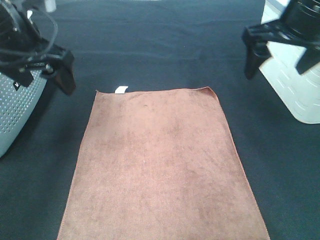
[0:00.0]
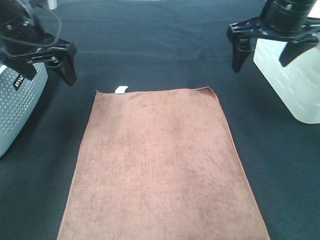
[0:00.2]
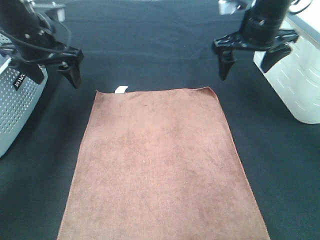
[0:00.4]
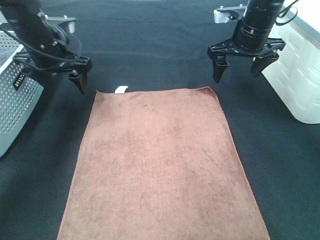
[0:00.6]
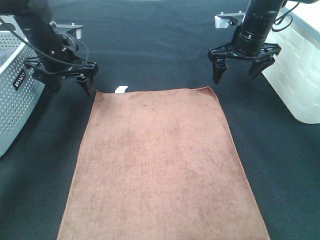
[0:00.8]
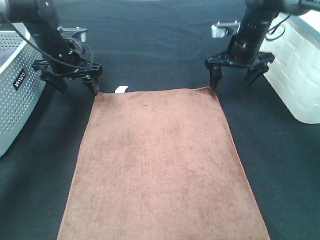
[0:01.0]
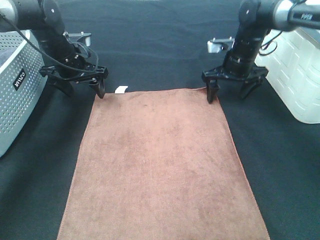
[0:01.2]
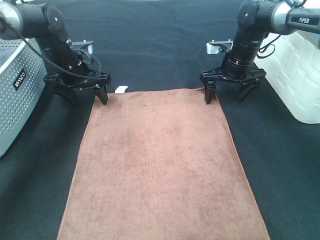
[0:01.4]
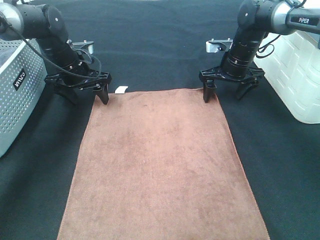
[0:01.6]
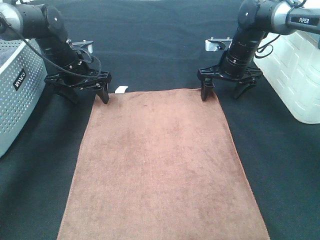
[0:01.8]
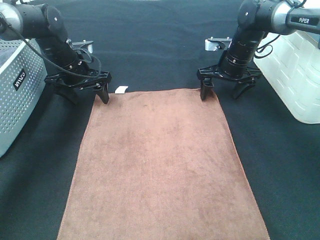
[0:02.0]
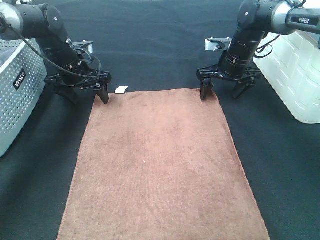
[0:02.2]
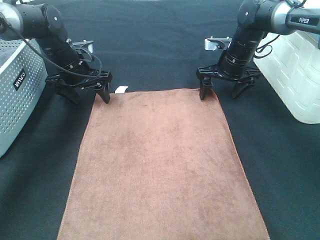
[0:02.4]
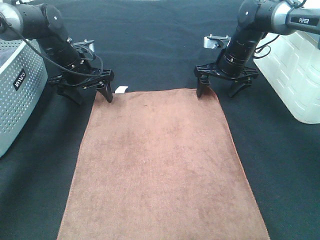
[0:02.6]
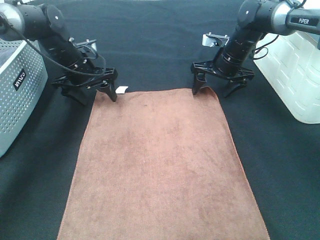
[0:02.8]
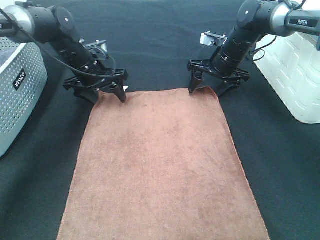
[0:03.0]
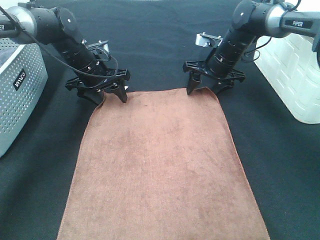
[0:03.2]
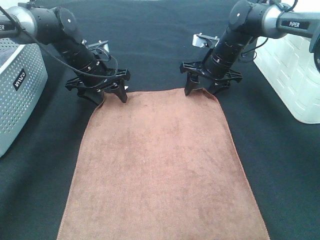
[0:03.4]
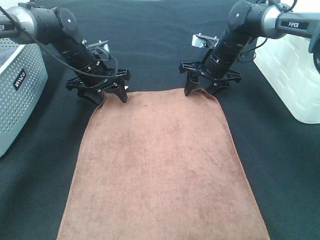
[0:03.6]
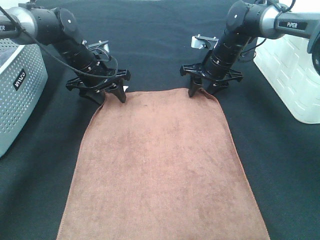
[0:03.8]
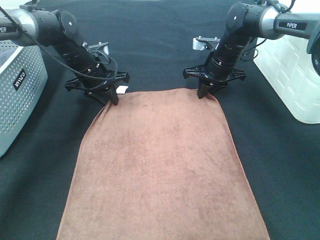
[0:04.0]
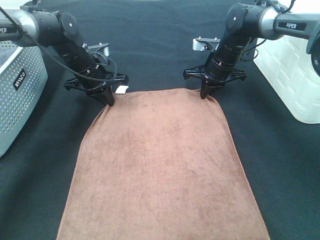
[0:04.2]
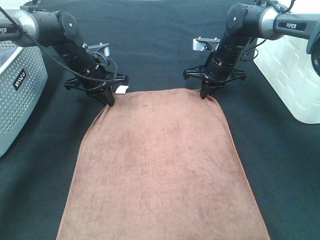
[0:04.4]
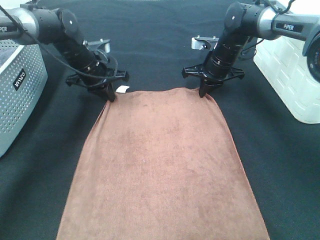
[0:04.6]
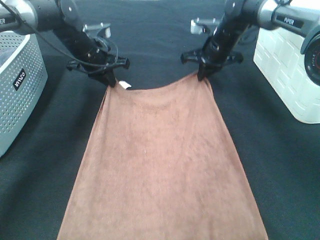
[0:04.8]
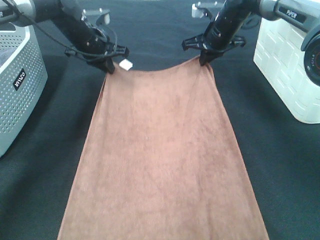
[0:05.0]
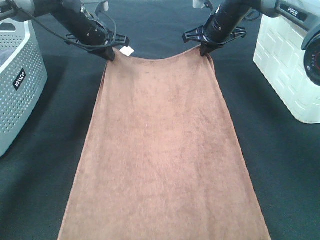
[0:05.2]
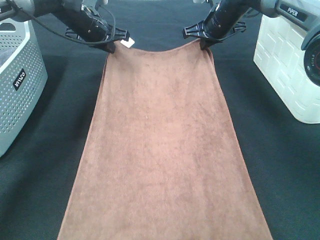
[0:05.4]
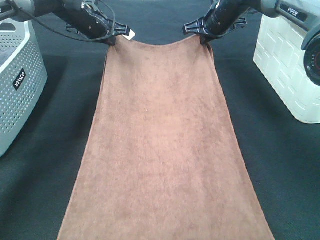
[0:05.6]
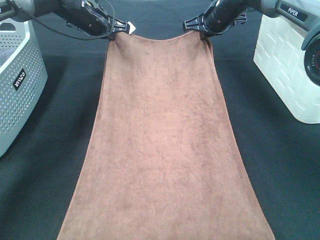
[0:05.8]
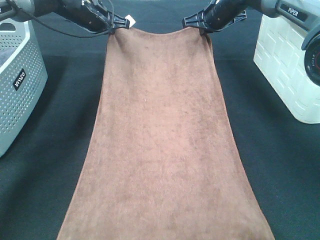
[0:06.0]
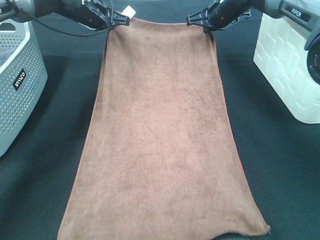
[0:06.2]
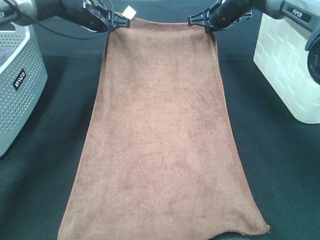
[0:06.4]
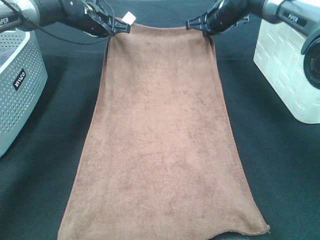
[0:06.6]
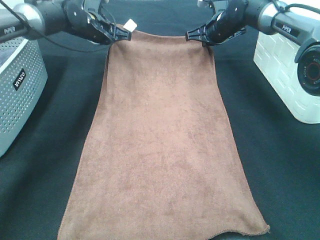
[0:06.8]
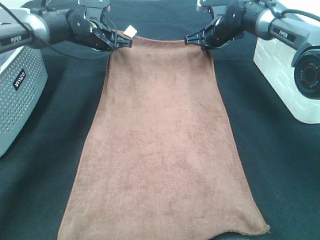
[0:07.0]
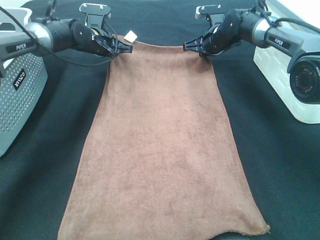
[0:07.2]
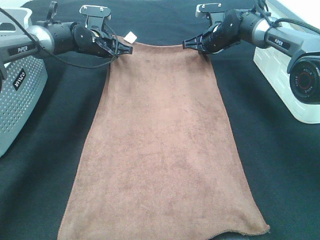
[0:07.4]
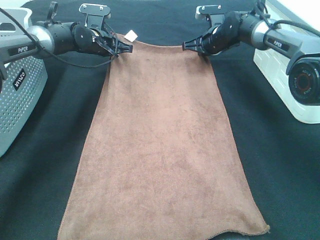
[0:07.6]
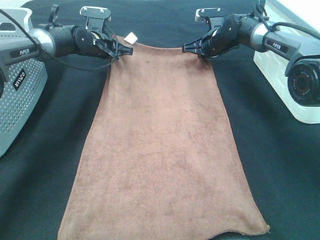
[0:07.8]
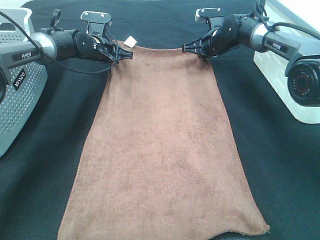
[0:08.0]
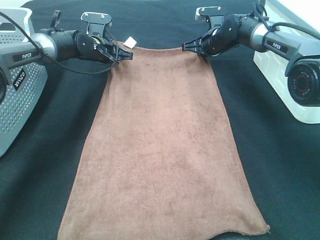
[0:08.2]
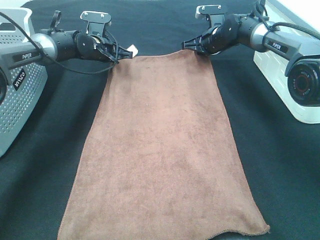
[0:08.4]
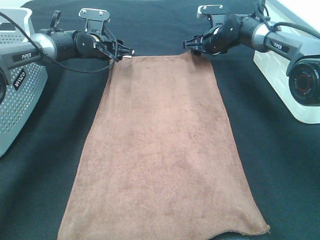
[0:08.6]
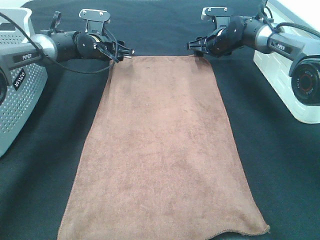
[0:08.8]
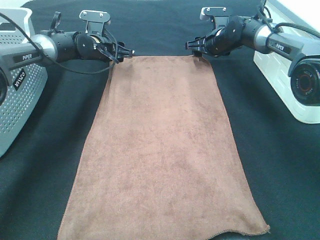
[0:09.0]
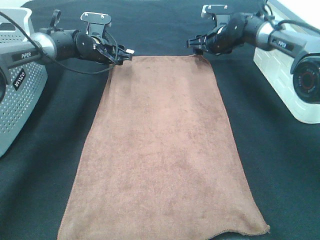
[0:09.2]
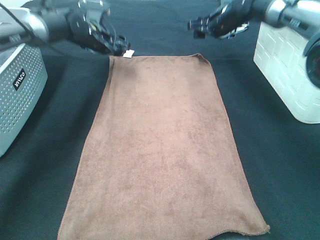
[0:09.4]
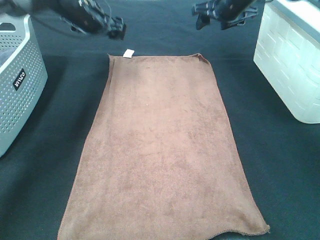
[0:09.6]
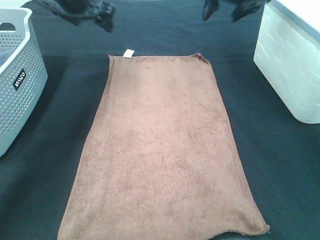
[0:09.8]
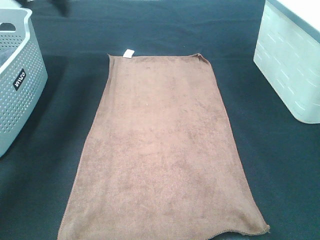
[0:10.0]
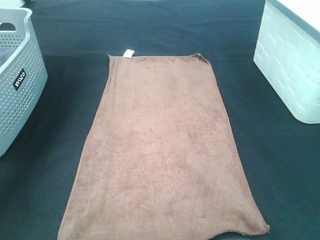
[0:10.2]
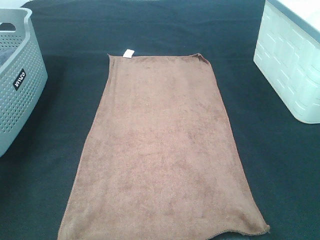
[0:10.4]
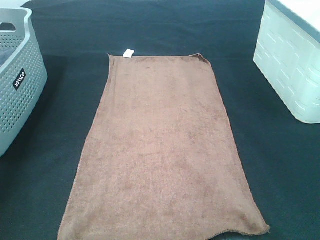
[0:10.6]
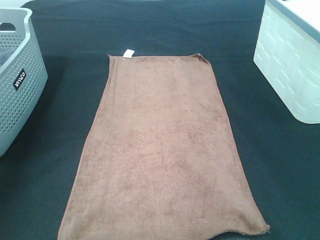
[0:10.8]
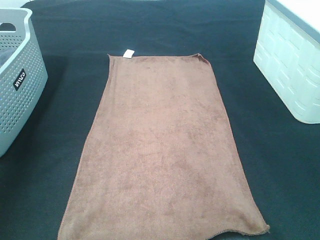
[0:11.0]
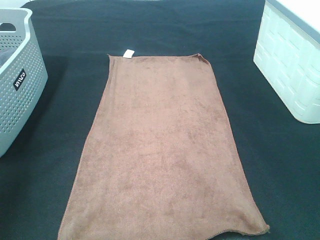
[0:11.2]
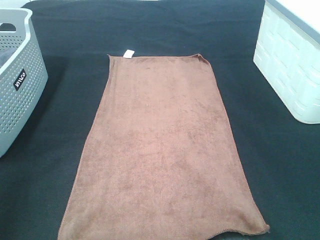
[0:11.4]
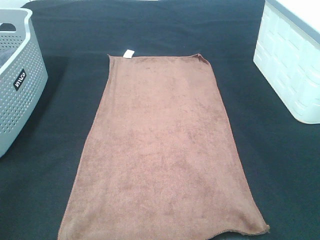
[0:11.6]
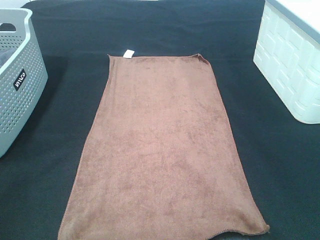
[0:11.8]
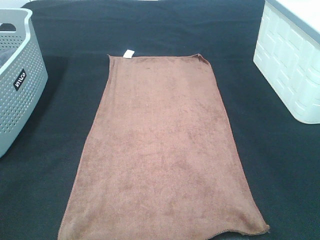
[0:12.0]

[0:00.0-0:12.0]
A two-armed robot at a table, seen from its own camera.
Task of the whole recording: Remove the towel and place it.
Step, 0:00.0 to 0:02.2: Left hand:adjust the brown towel.
Step, 0:00.0 to 0:02.2: Right hand:adjust the brown towel.
0:00.0 to 0:01.6: The two grippers go about 25 cm downward and forward.
0:01.6 to 0:03.0: The grippers make only small movements.
0:03.0 to 0:04.4: The right gripper closes its fingers; the left gripper closes up.
0:04.4 to 0:06.0: The two grippers go roughly 10 cm upward and forward.
0:06.0 to 0:07.6: Both grippers travel together downward, approximately 10 cm.
0:07.6 to 0:09.0: The right gripper opens up. Meanwhile the left gripper opens its fingers.
0:09.0 to 0:10.4: The left gripper goes some 35 cm upward, to the left and backward, while the right gripper shifts some 30 cm upward and backward.
0:10.4 to 0:12.0: Both grippers move backward, roughly 40 cm.

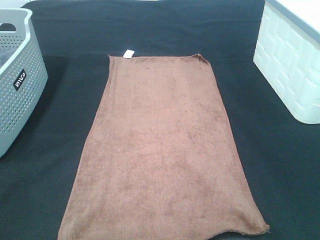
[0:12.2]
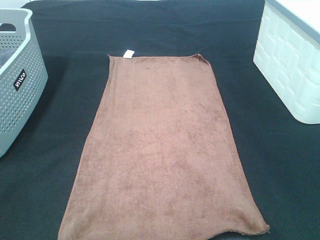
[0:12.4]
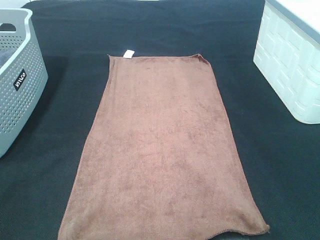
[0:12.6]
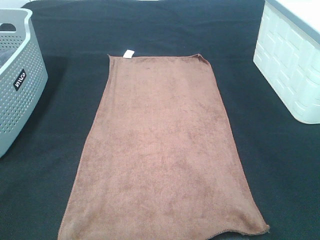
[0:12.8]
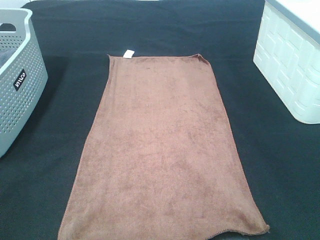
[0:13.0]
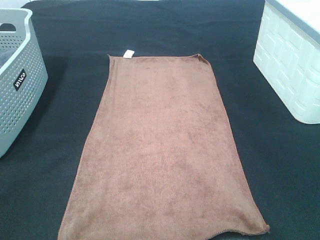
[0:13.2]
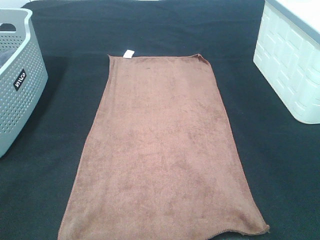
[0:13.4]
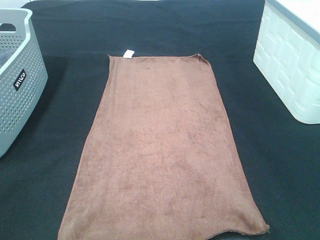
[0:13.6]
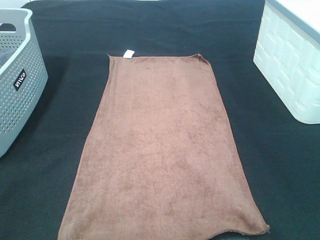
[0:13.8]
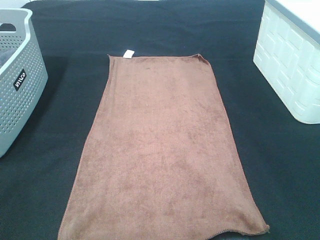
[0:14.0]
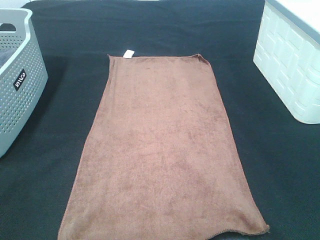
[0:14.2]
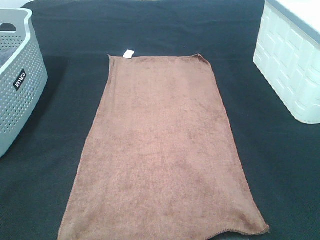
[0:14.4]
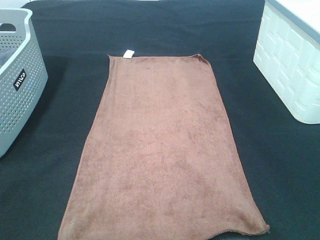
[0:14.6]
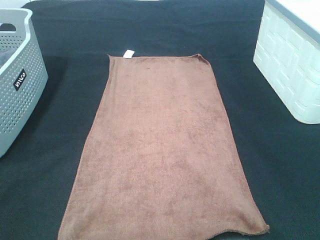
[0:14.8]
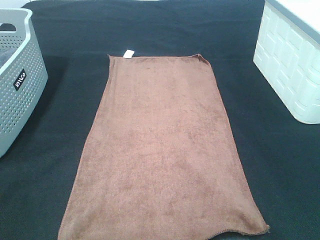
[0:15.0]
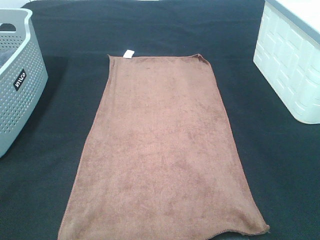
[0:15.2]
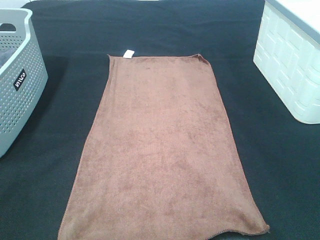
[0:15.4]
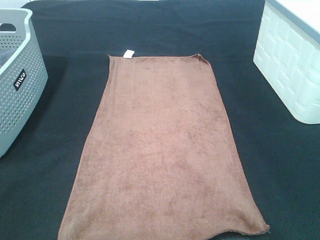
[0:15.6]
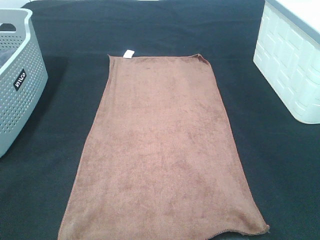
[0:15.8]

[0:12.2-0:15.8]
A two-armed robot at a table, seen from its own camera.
Task of the whole recording: Remove the towel and place it.
0:14.0 to 0:15.8: Both grippers stay about where they are.

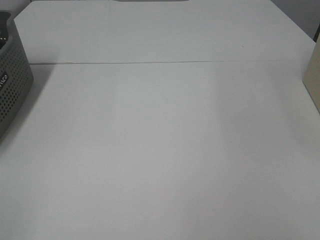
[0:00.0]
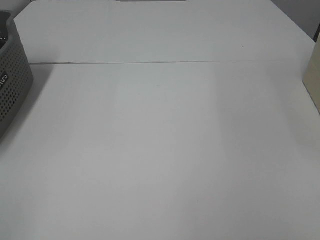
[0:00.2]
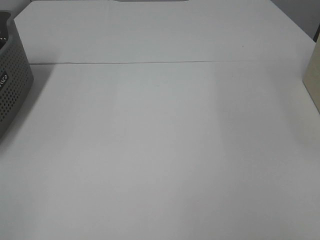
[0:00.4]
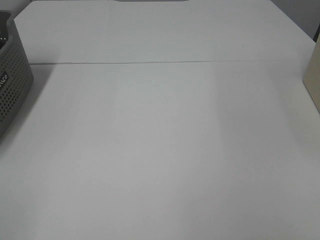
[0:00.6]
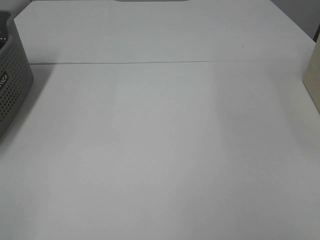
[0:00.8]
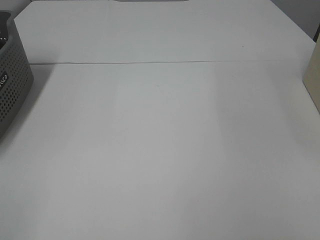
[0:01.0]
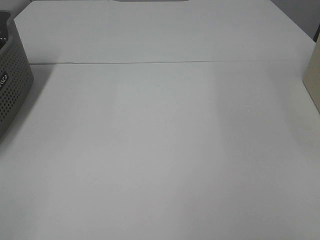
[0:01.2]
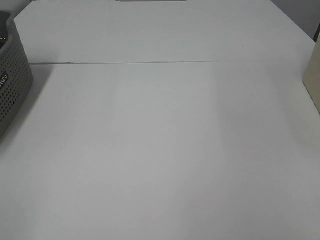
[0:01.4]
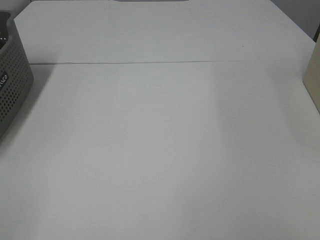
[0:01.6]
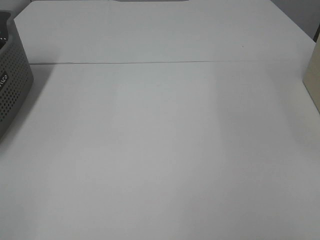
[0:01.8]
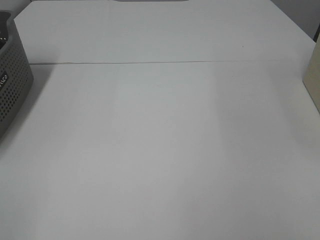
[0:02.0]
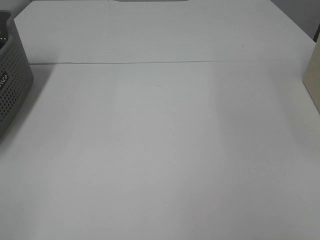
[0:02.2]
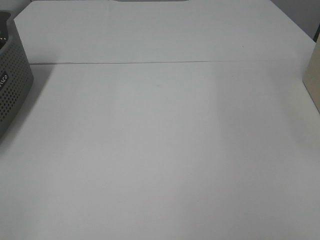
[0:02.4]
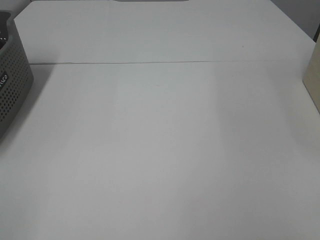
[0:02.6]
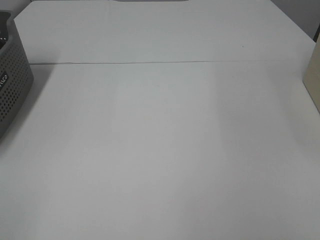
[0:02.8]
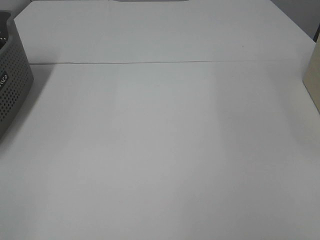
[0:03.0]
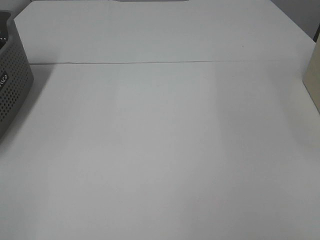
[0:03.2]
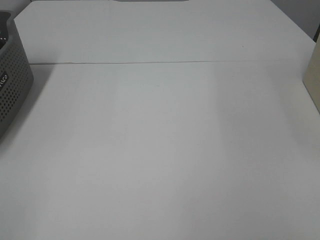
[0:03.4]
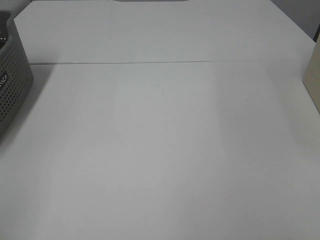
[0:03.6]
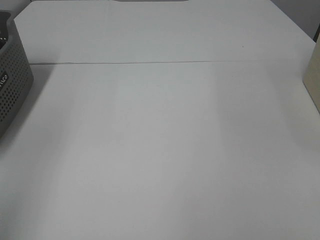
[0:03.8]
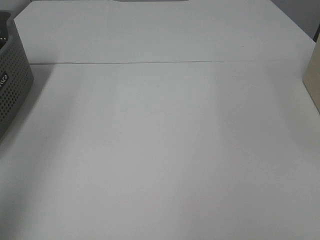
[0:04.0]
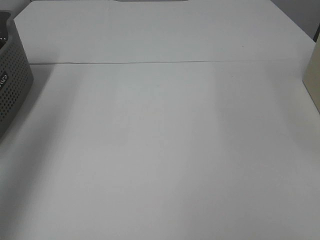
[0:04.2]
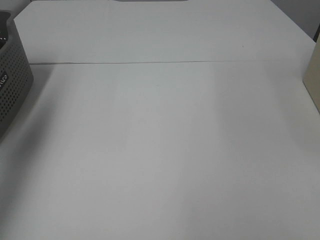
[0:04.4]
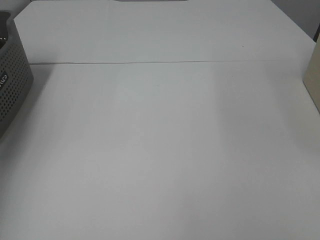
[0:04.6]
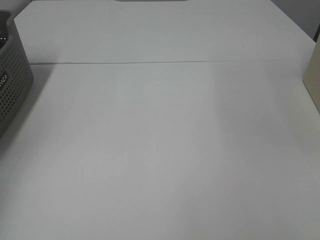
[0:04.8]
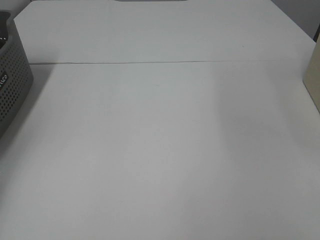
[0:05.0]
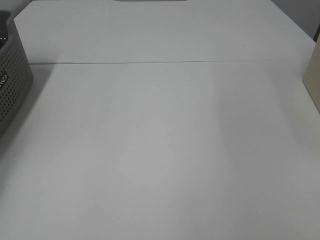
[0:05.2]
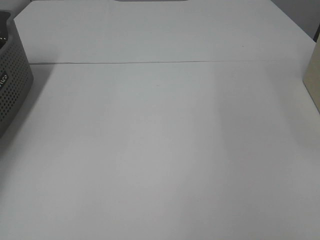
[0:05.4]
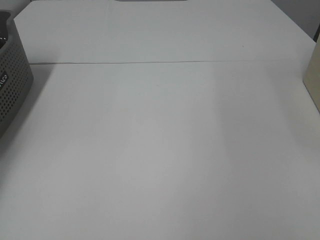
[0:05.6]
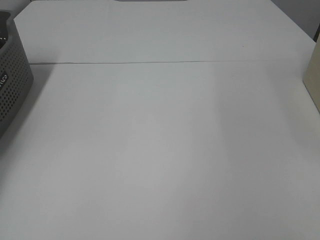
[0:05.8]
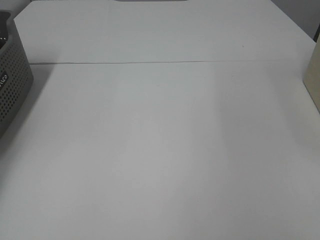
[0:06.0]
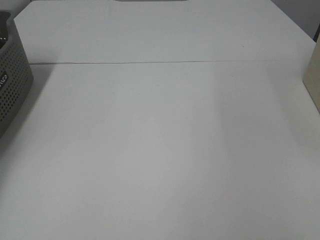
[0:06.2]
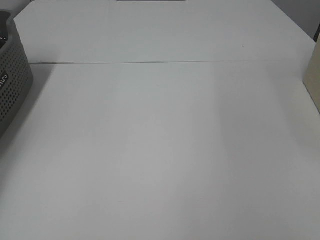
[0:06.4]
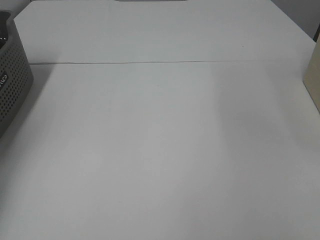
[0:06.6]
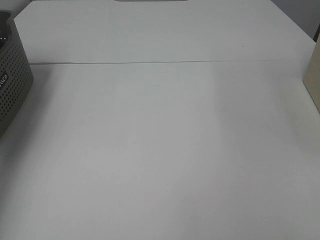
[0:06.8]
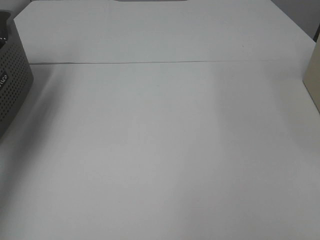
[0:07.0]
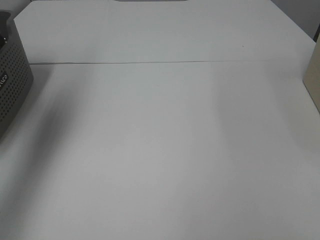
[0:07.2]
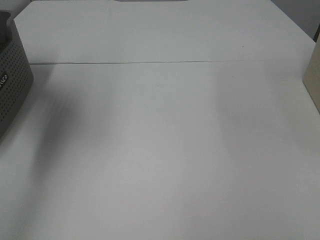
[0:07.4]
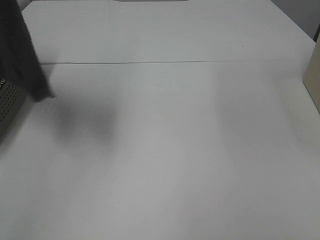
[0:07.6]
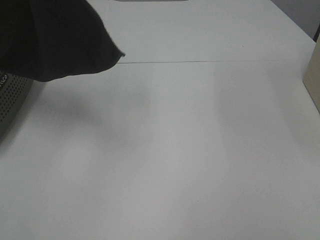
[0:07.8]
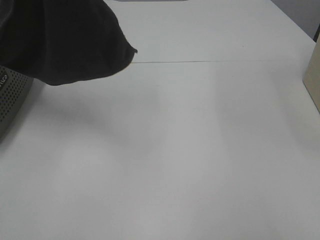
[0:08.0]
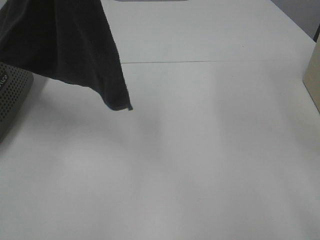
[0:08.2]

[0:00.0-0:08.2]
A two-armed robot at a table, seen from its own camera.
Task of the whole recording: Remove the towel and place it.
0:00.0 to 0:03.2: The two grippers keep their place.
0:03.2 to 0:05.0: The left gripper heads forward, covering about 40 cm.
0:06.6 to 0:08.2: The right gripper is displaced forward by approximately 5 cm. The left gripper goes about 40 cm to the right, upward and backward.
